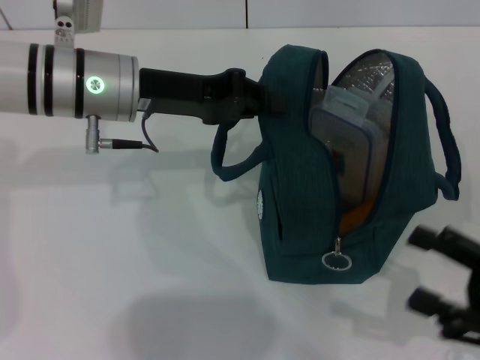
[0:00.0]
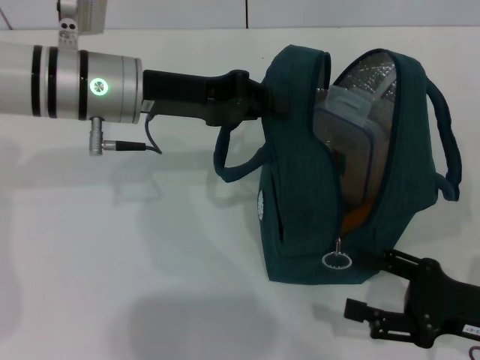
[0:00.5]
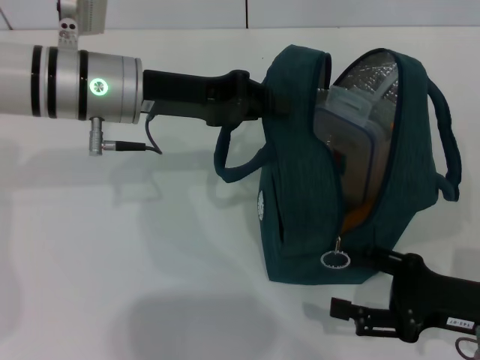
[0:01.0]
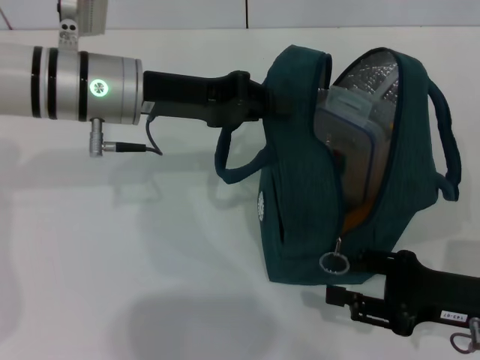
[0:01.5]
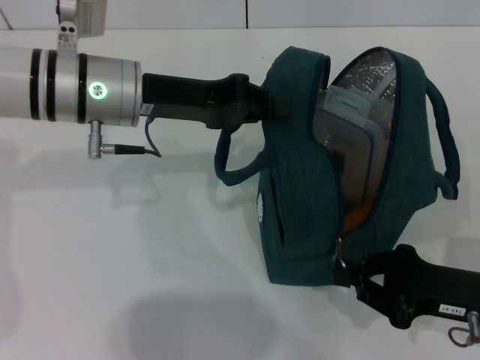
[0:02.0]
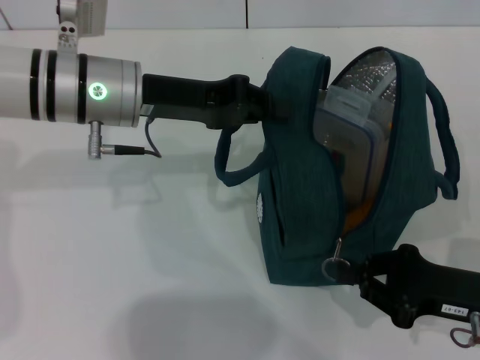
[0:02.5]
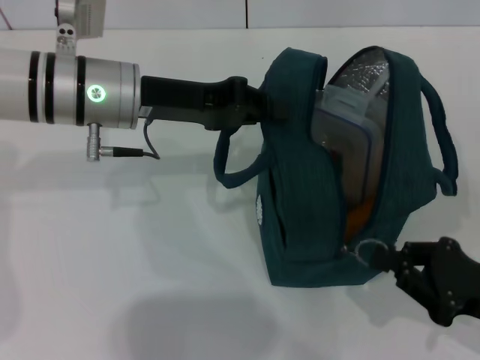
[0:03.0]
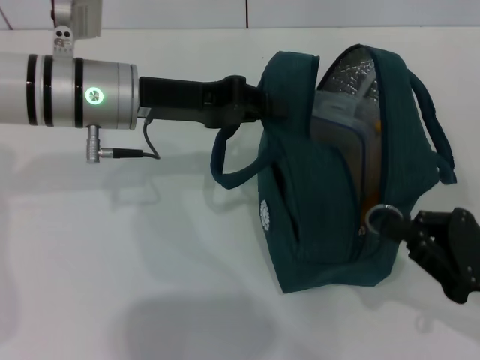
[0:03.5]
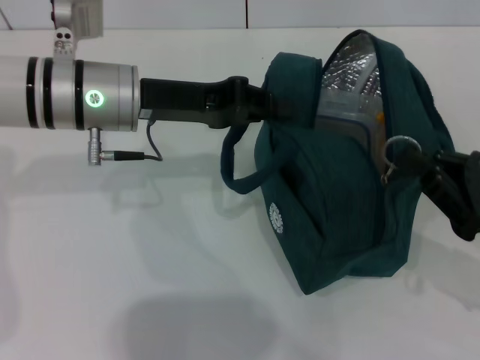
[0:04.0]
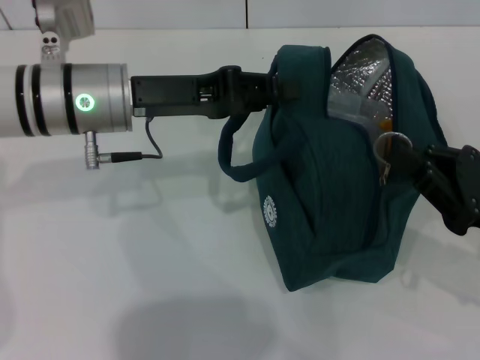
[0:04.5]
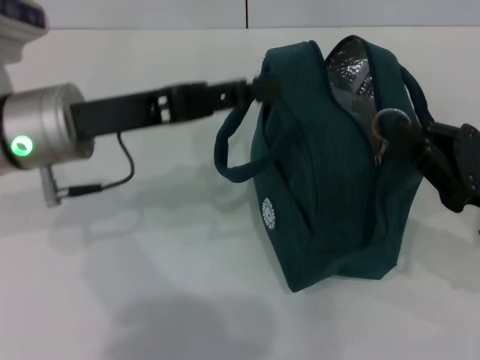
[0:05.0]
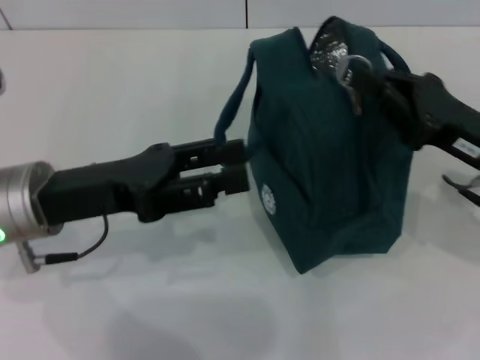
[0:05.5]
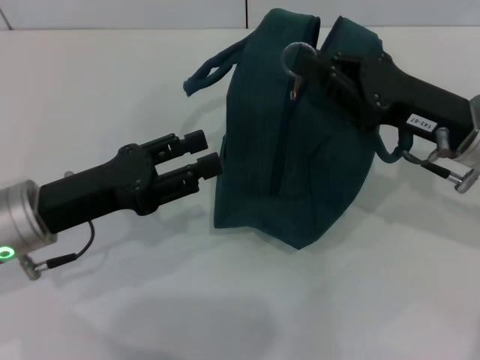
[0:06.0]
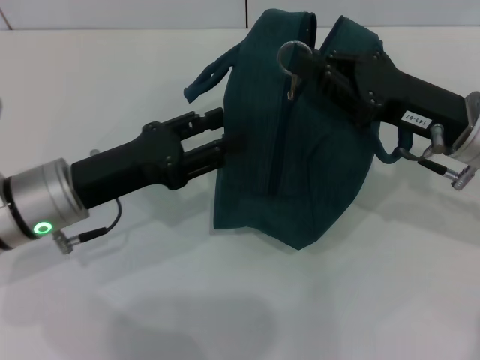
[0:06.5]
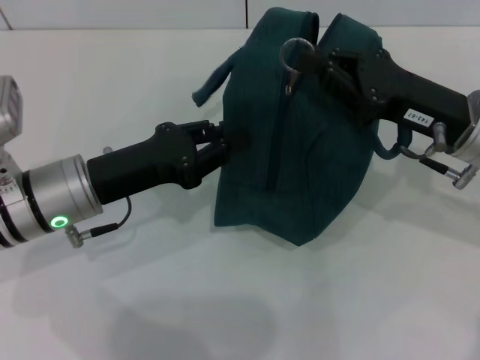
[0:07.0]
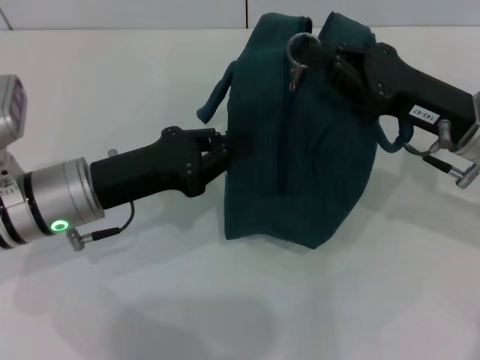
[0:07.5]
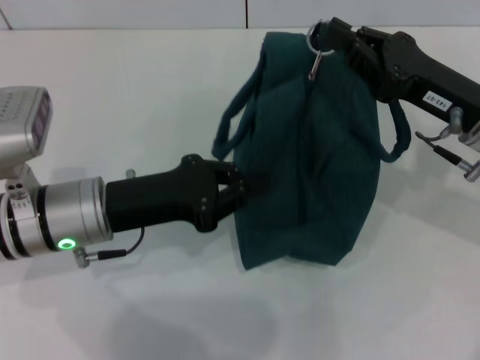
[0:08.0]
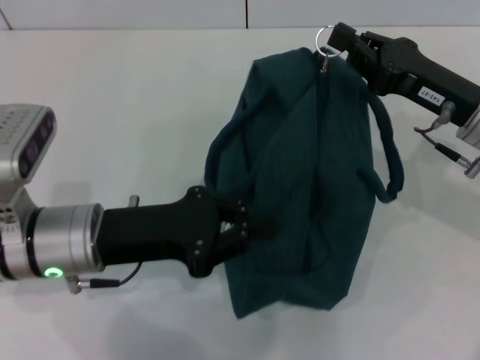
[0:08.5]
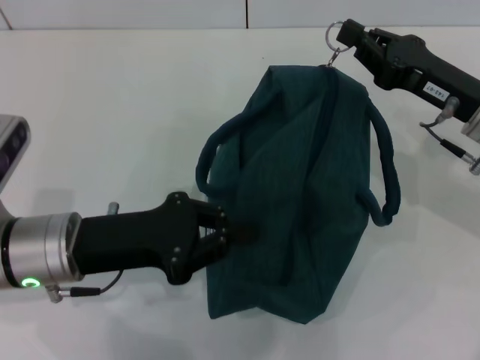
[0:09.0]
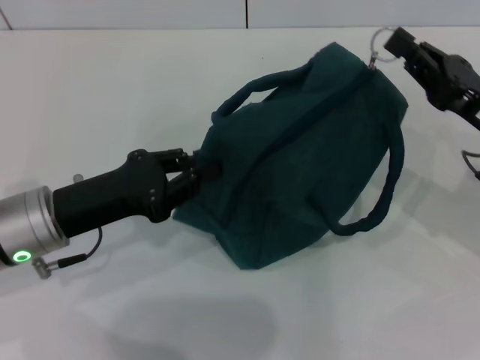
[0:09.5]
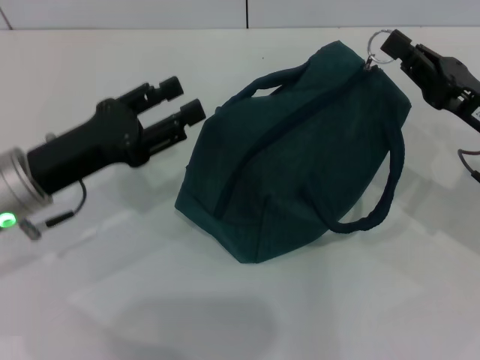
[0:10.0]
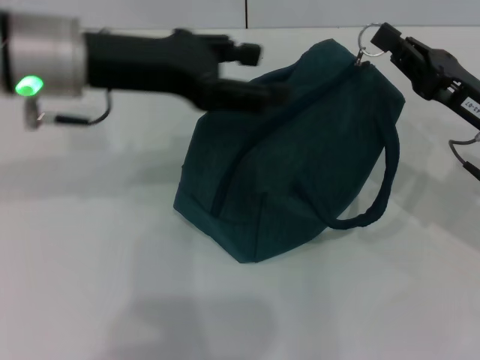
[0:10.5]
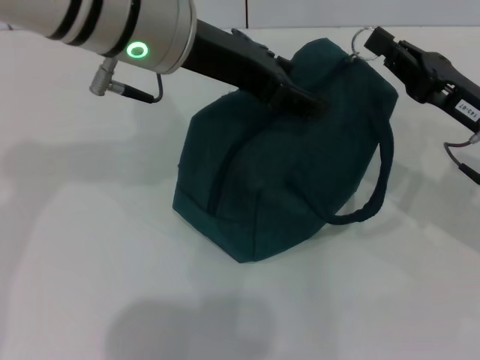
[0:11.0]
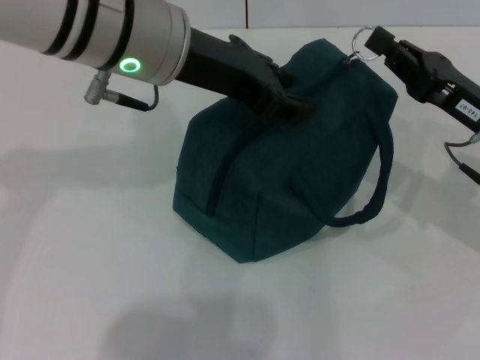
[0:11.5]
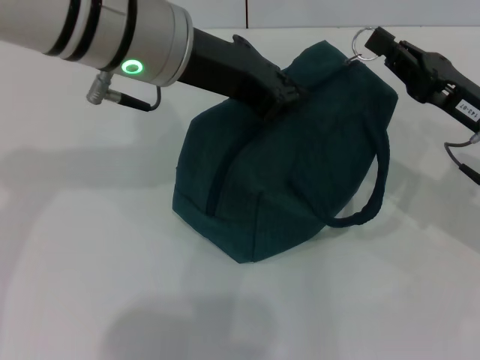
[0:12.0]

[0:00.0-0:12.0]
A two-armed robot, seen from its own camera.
Step, 0:00.0 to 0:05.0: Hold the lunch bag with your left hand.
0:00.0 to 0:02.0: The right gripper changes place by roughly 5 cm, and closes up.
0:04.0 to 0:06.0: The left gripper moves backward, to the left and downward, about 15 cm, and opens. Meanwhile the right gripper travels forward and to the left by approximately 10 cm.
0:06.0 to 0:08.0: The left gripper closes.
0:08.0 to 0:10.0: The left gripper ends up approximately 5 cm from where it was, and opens its fingers.
0:10.0 to 0:12.0: The left gripper travels upward and to the right by some 20 cm, and closes.

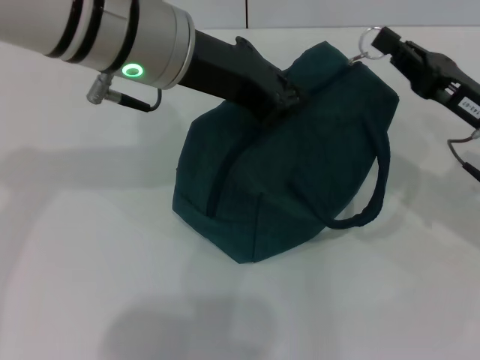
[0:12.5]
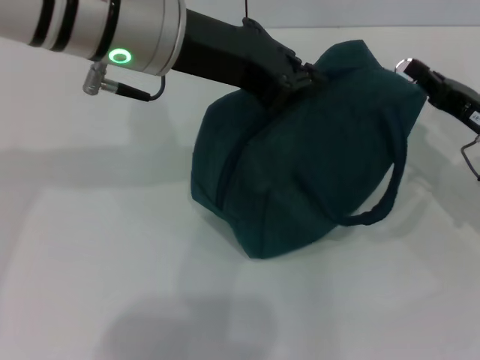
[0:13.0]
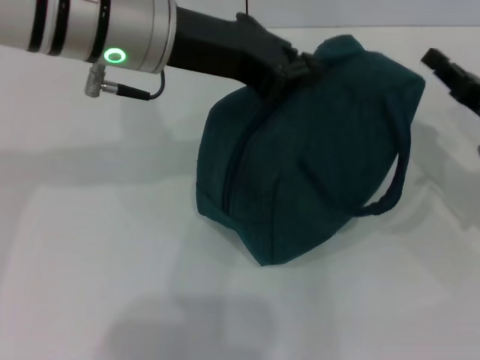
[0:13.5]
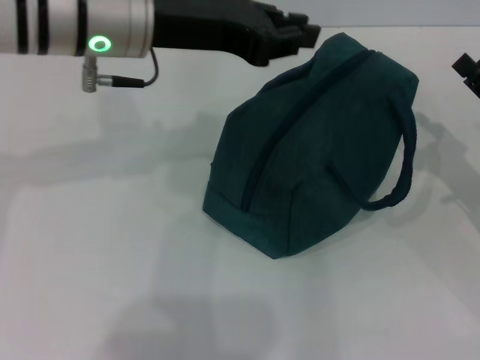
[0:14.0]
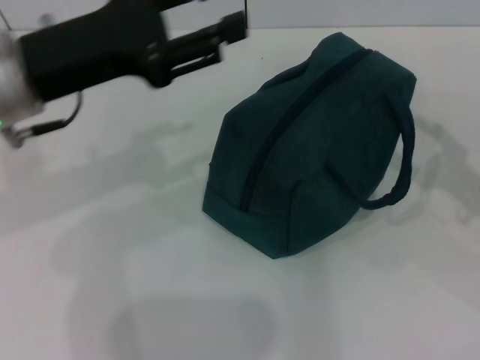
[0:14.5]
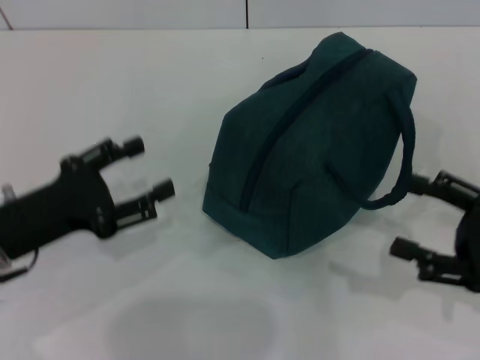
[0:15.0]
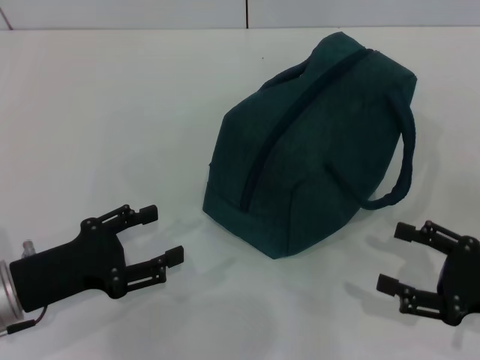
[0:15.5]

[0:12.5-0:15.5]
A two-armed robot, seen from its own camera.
0:12.5 to 0:14.0: The right gripper moves to the right, approximately 5 cm, and opens its fingers.
0:14.0 to 0:15.5: The right gripper travels backward by some 10 cm, and opens up. The left gripper moves downward, backward and to the left, roughly 30 cm, and opens up.
